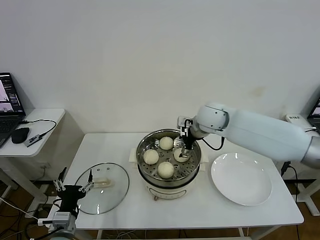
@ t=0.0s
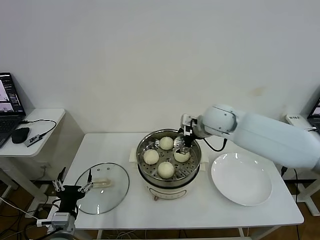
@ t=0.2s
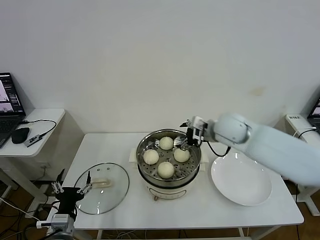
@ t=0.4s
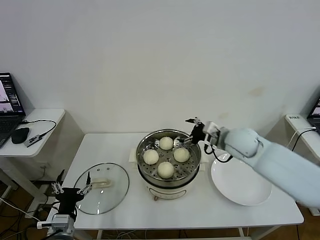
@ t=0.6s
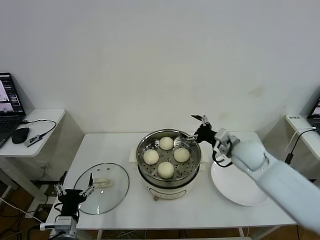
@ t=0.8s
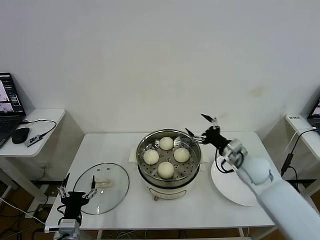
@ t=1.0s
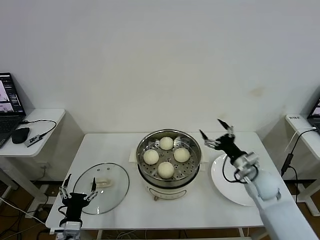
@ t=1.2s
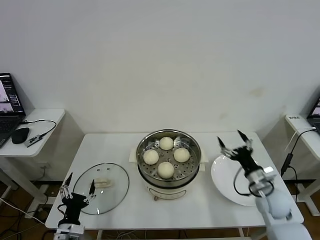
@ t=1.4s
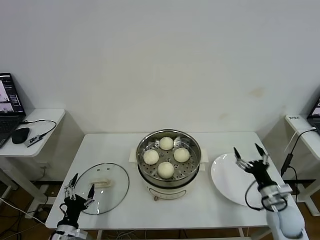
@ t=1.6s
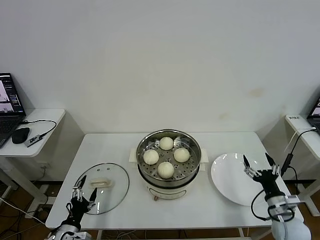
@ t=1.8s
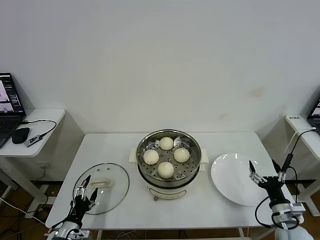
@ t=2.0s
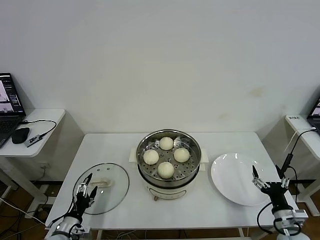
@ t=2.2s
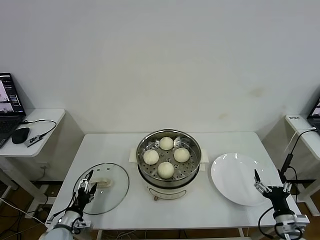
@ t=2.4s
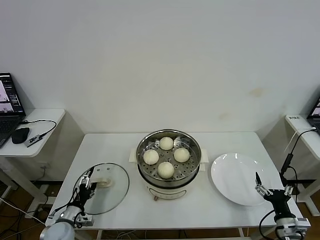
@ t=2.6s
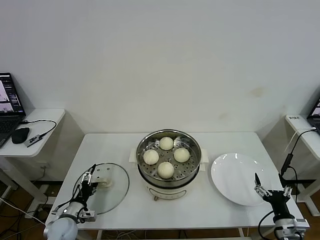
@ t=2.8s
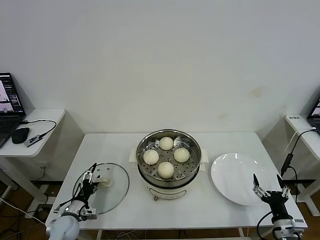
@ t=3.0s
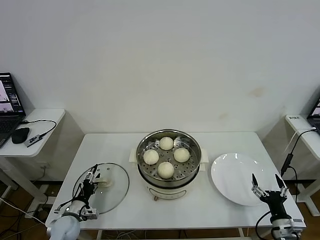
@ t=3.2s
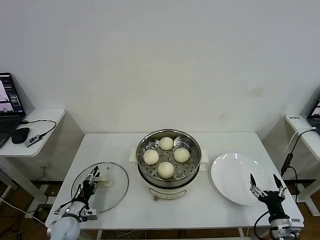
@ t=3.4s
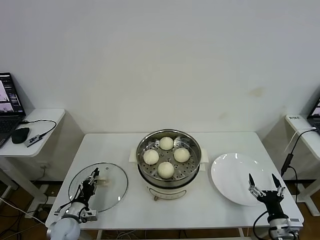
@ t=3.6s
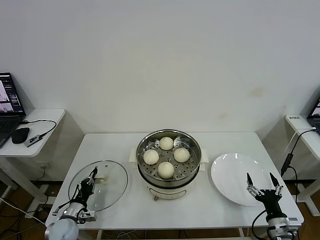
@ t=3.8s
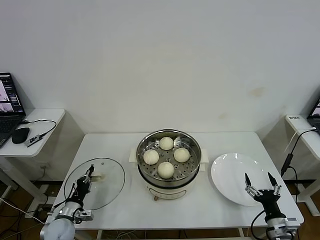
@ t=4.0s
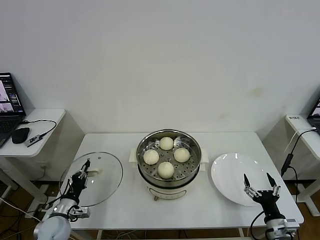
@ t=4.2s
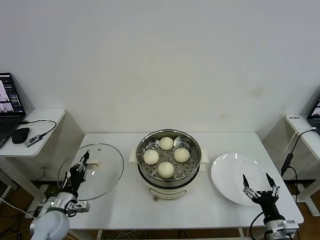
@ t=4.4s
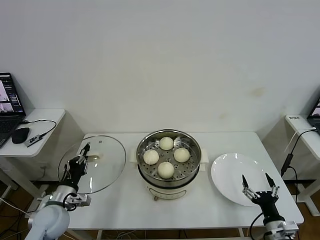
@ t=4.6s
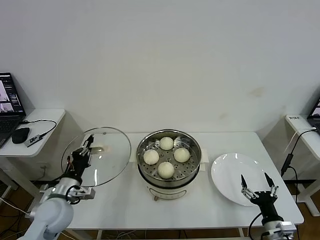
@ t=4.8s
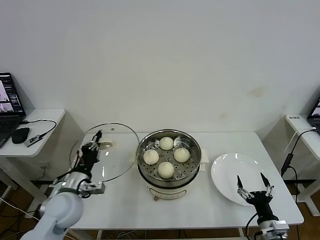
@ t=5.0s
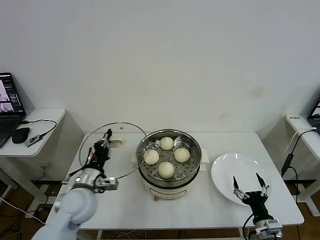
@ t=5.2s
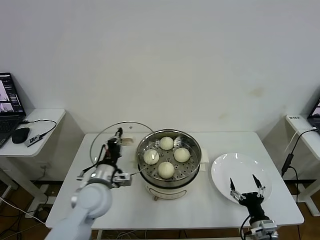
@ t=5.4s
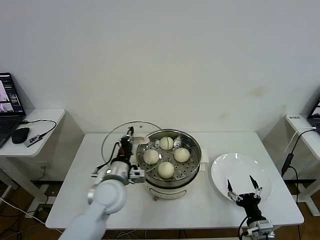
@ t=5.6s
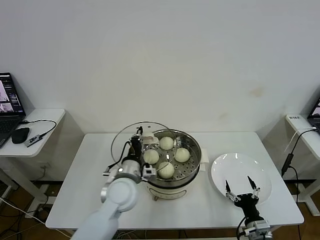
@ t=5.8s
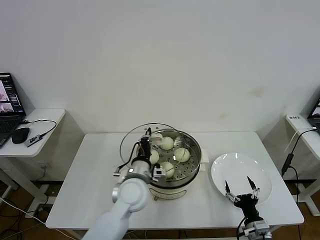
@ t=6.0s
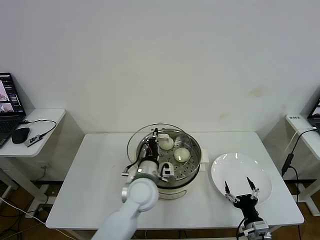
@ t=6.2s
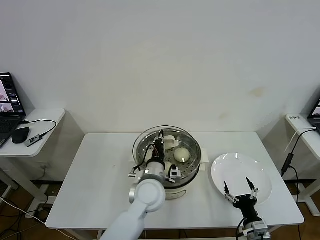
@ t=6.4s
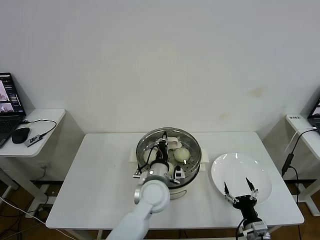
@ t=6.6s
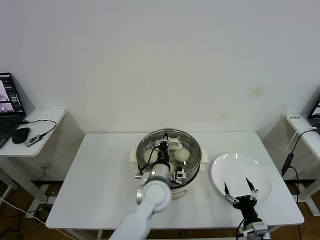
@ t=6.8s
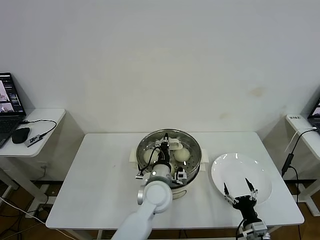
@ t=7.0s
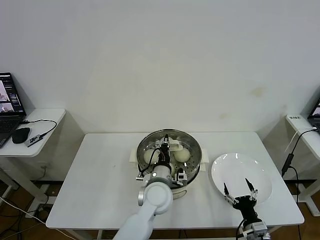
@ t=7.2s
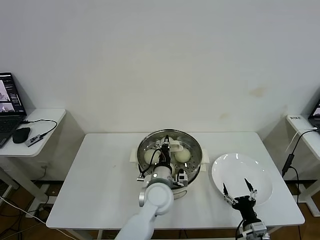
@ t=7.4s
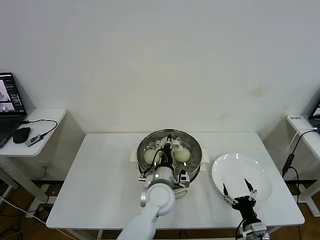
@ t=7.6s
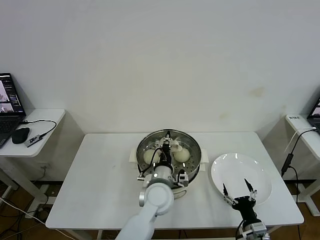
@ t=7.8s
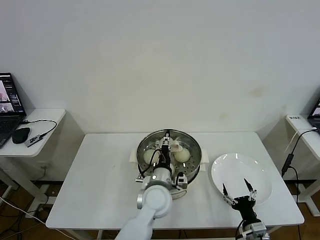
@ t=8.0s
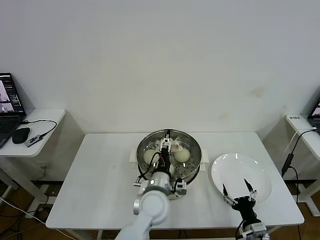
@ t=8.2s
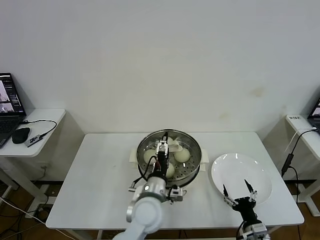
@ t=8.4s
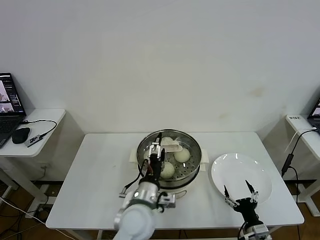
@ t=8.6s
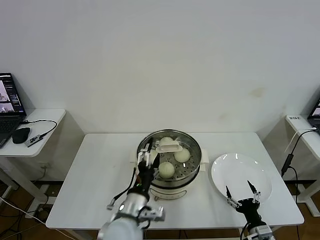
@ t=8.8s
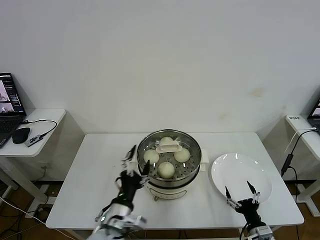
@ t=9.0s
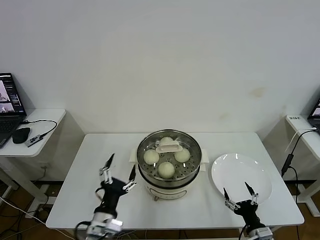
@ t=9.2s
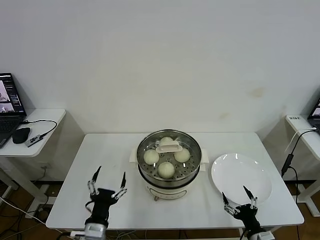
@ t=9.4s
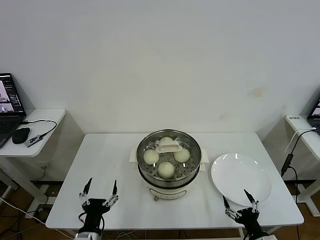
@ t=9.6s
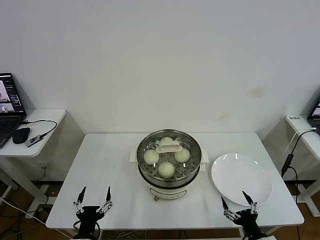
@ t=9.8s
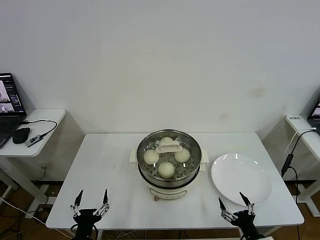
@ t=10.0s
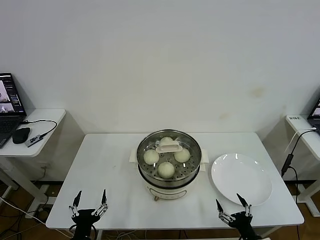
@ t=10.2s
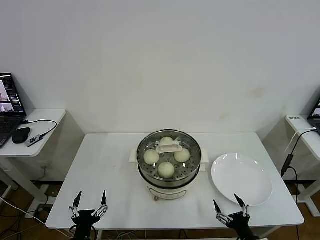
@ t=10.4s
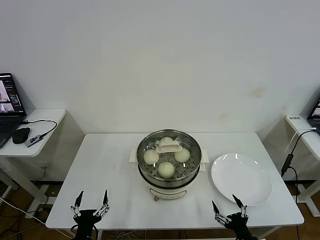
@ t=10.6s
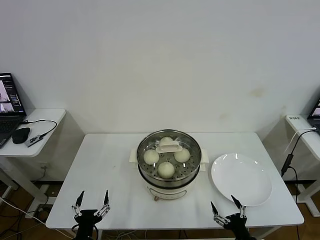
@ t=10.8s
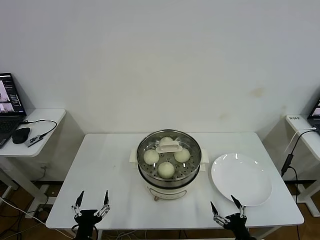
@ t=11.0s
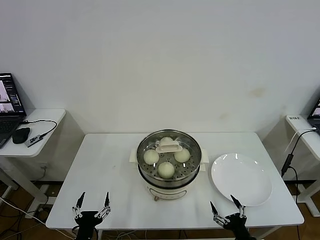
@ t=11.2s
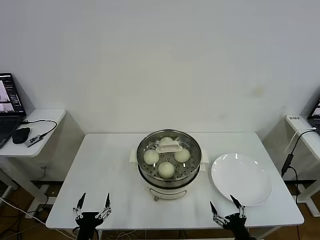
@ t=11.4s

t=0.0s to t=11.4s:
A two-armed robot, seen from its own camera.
Task of the whole recording: take steamed baozi put them in steamer then cover it.
Step, t=0.0s to t=3.8s: Grasp the pot lid with left gripper.
Step, t=4.0s to t=8.0s: Place the pot lid on the steamer with left gripper.
t=0.0s to t=1.4s: The left gripper moves downward, some 5 cm; the right gripper heads to the right, downward and backward, covering roughly 35 cm.
t=1.4s to t=2.8s: The right gripper travels backward and downward by some 15 cm; the left gripper travels forward, downward and to the left by some 15 cm.
t=2.8s to t=4.2s: The left gripper closes.
t=4.2s to t=5.6s: The right gripper changes place by roughly 5 cm. Meanwhile the left gripper shifts some 25 cm to the right and upward.
t=5.6s to t=7.2s: The left gripper is displaced to the right by approximately 15 cm.
t=7.2s to t=8.6s: The left gripper goes roughly 5 cm backward, and opens.
t=8.6s to t=10.0s: The left gripper shifts approximately 25 cm to the left, backward and downward.
t=10.0s to t=11.4s: The grippers make only small movements.
